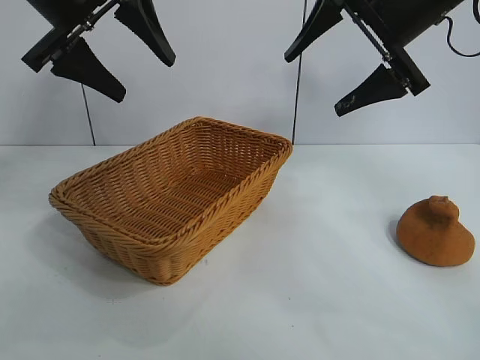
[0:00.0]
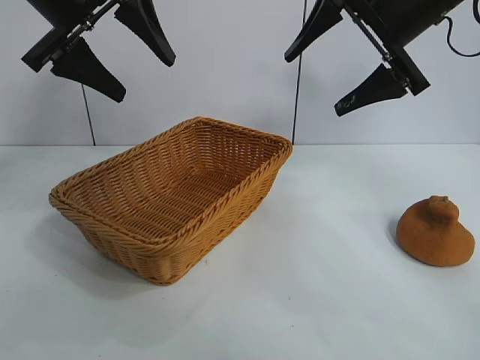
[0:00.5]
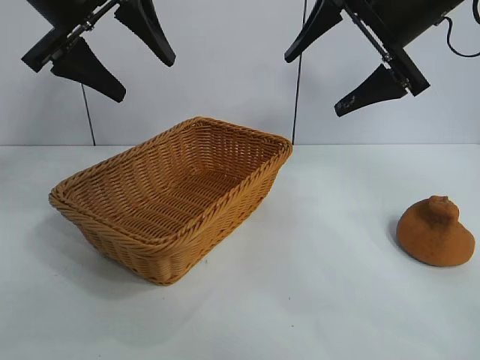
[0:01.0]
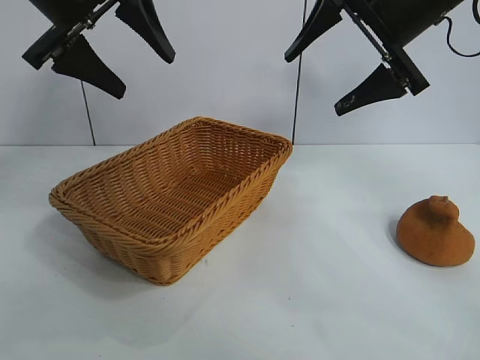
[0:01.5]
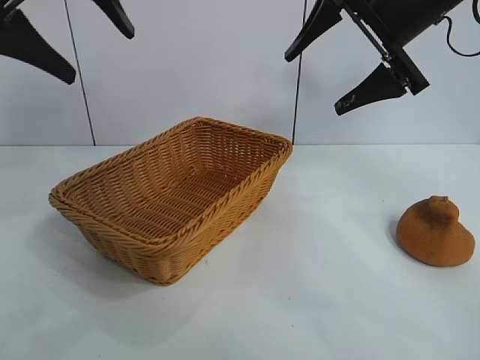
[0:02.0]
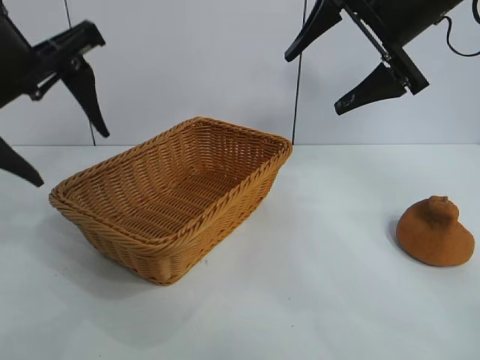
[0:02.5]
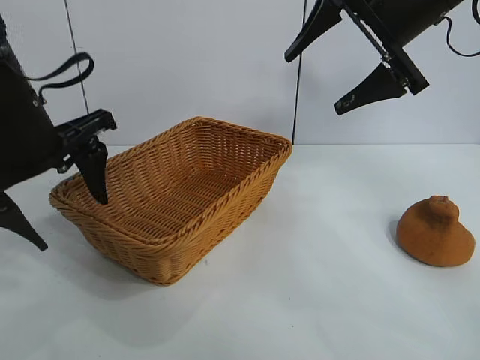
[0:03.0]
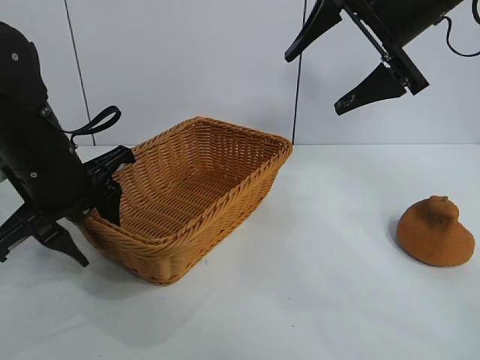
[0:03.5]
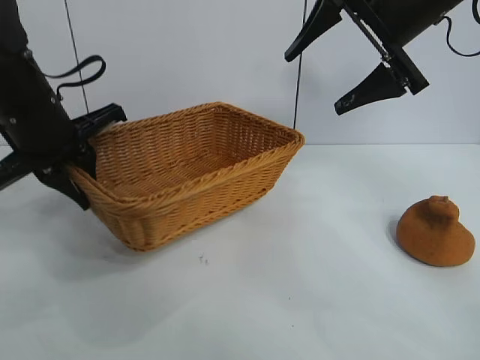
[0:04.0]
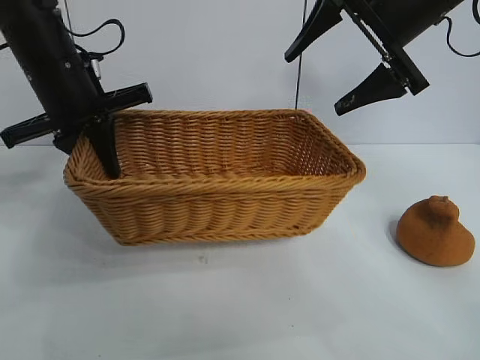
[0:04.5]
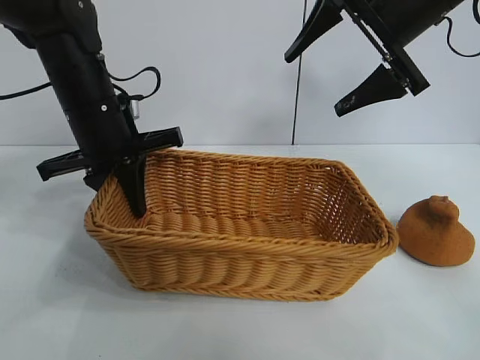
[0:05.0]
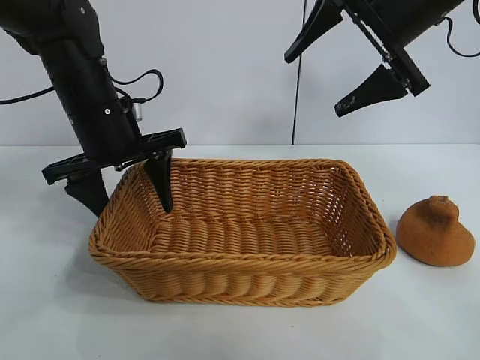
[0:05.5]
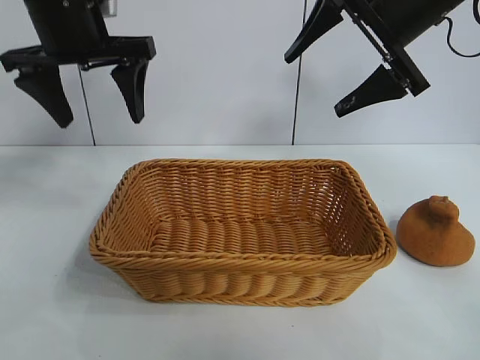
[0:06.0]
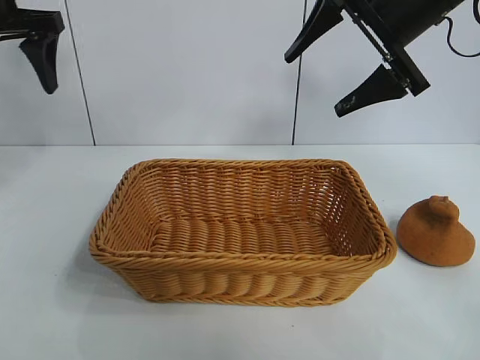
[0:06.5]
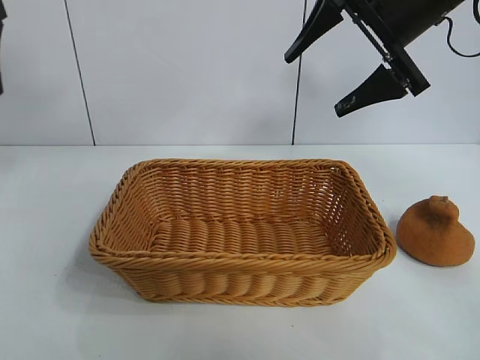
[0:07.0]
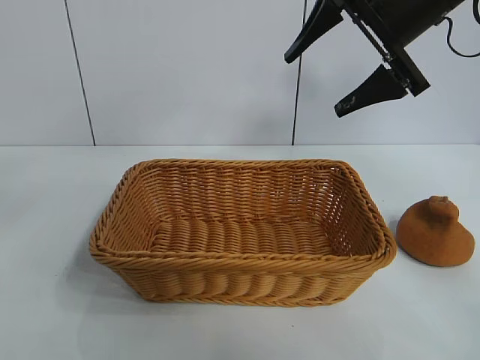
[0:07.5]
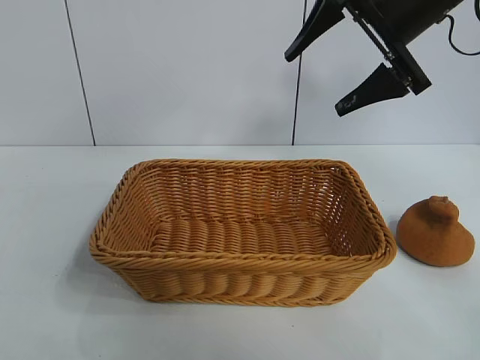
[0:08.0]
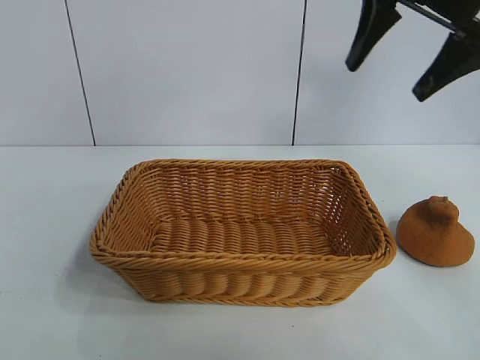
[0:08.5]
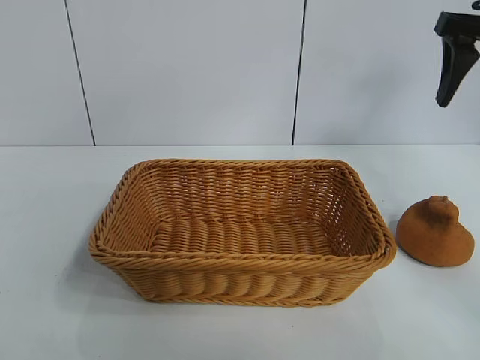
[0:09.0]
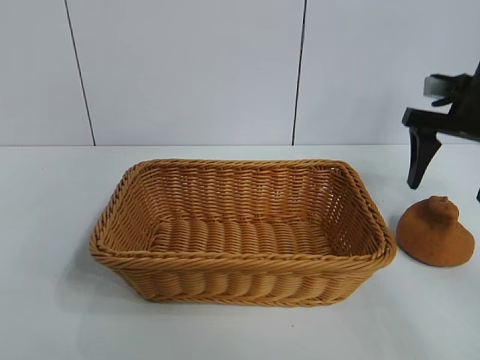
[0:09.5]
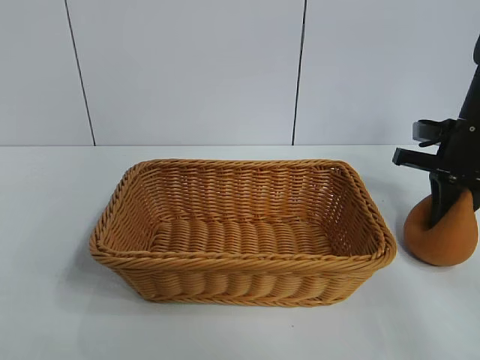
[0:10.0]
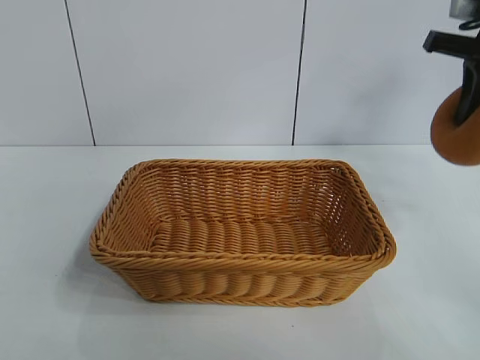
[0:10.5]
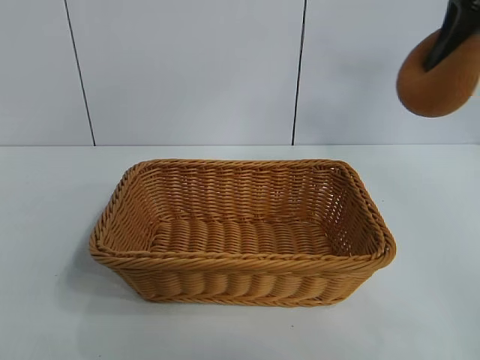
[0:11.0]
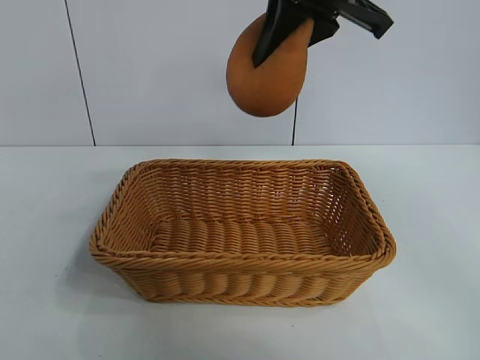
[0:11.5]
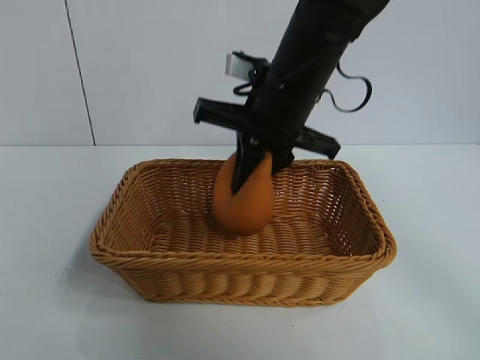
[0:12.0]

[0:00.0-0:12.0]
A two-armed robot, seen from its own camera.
Task of the whole recording: pick up the orange and put it into the basket.
Step, 0:00.0 to 0:03.5: Grasp the basket with left gripper.
Step, 0:04.0 to 0:05.5: Place the basket in the center of view with left gripper.
Step, 0:06.0 to 0:10.0: Grasp the orange with right gripper.

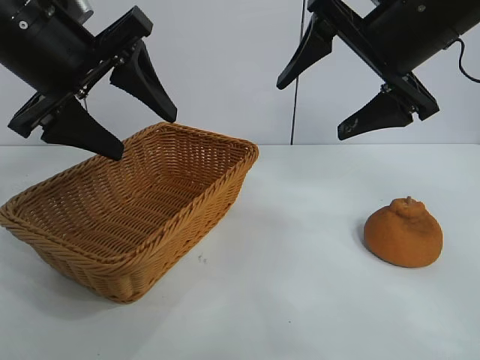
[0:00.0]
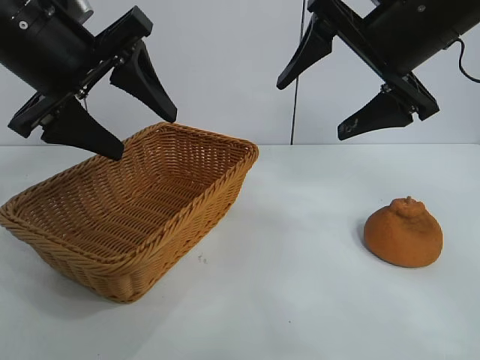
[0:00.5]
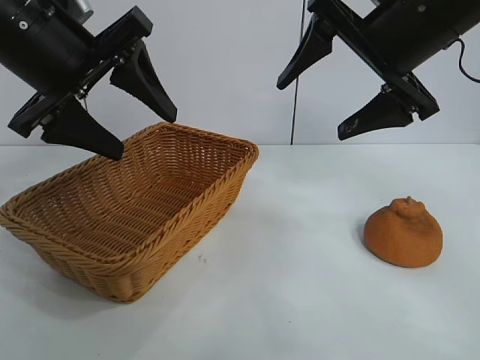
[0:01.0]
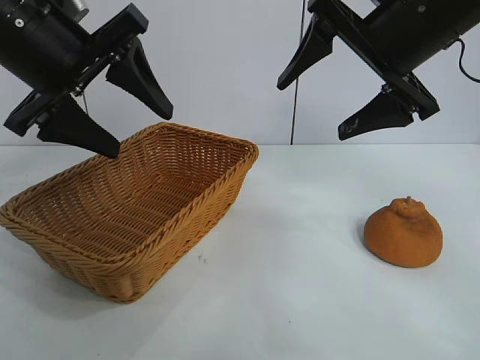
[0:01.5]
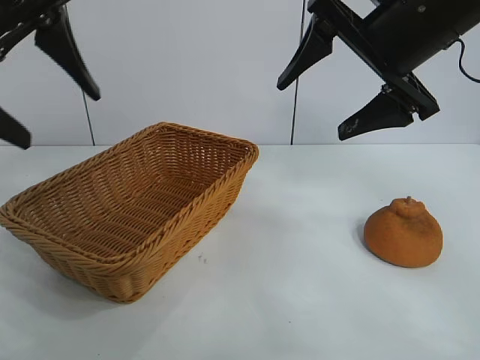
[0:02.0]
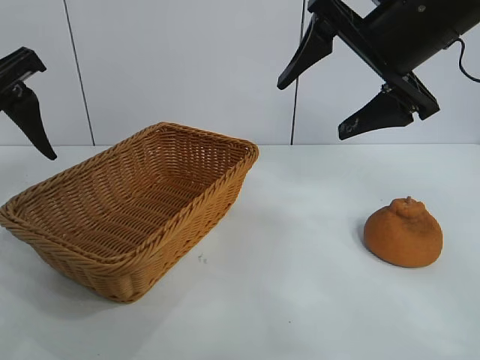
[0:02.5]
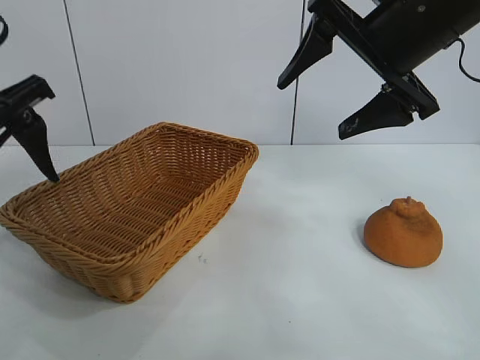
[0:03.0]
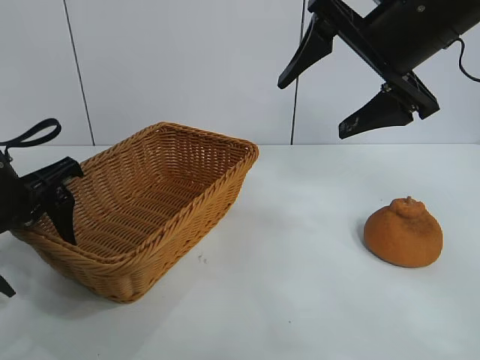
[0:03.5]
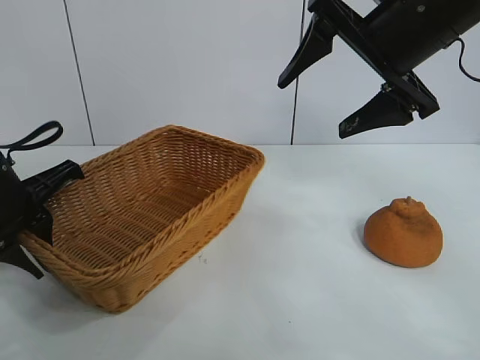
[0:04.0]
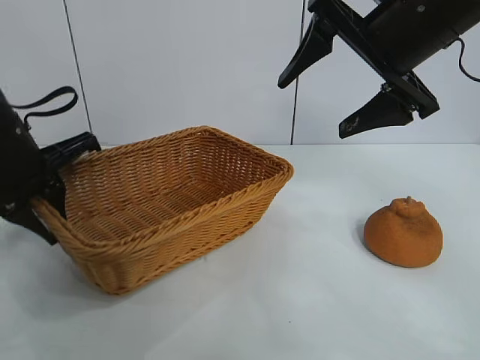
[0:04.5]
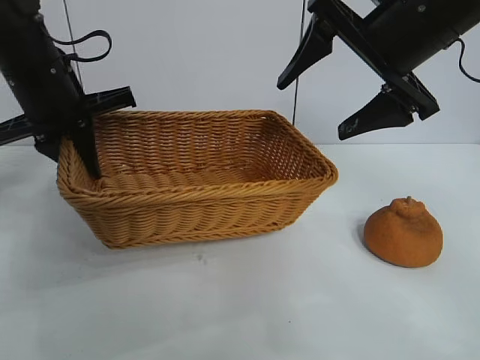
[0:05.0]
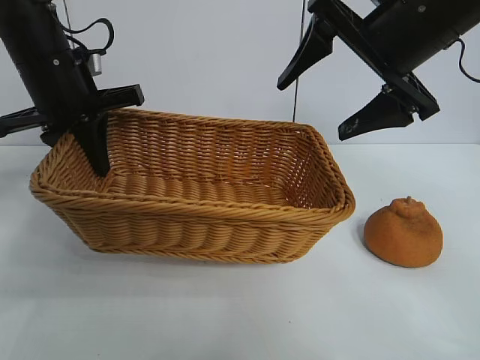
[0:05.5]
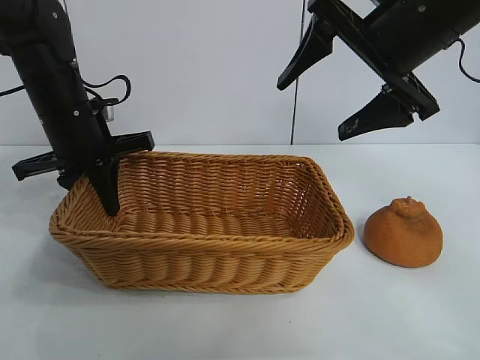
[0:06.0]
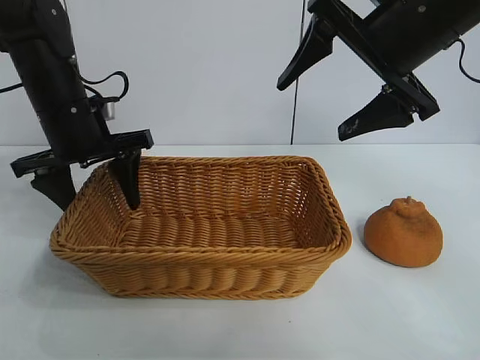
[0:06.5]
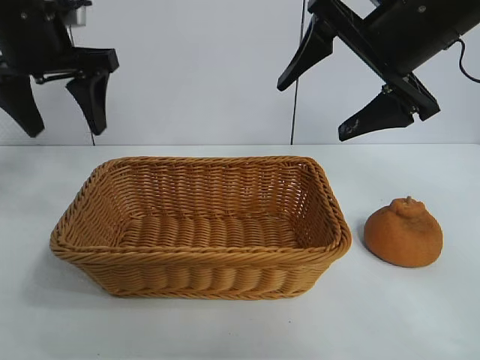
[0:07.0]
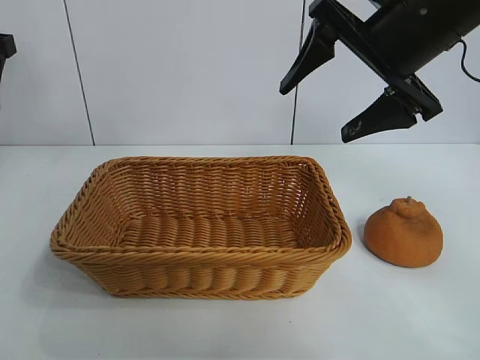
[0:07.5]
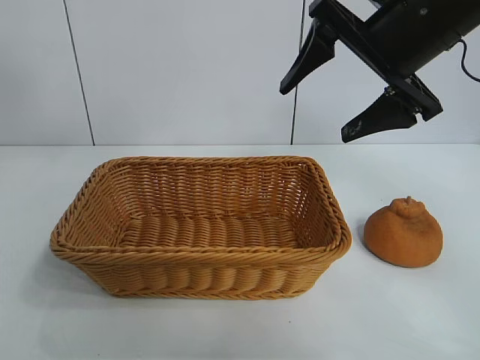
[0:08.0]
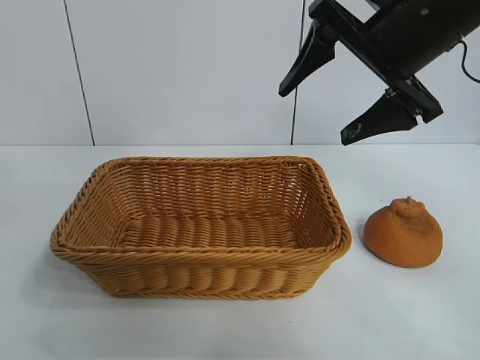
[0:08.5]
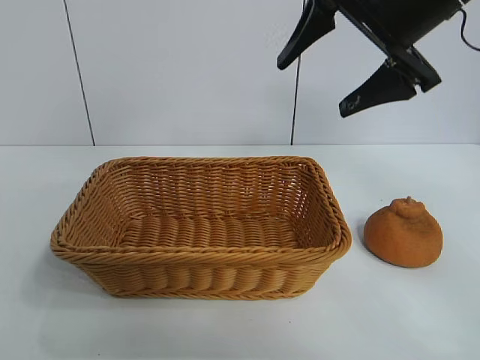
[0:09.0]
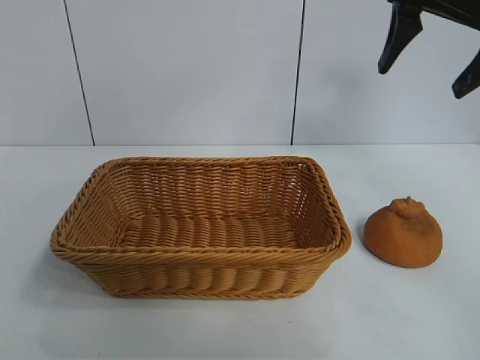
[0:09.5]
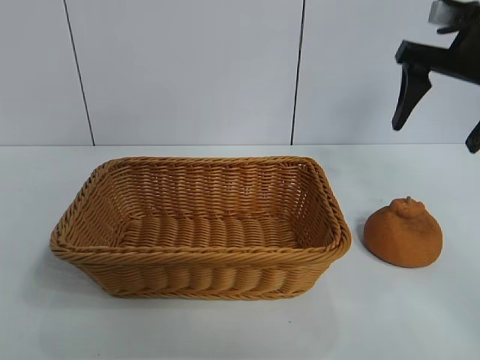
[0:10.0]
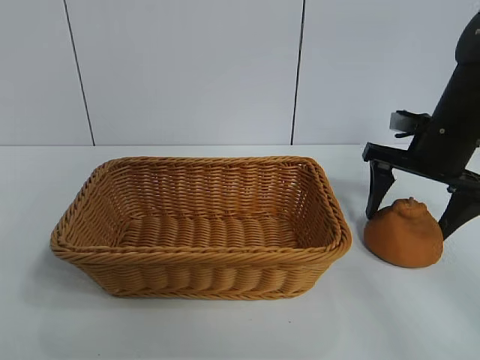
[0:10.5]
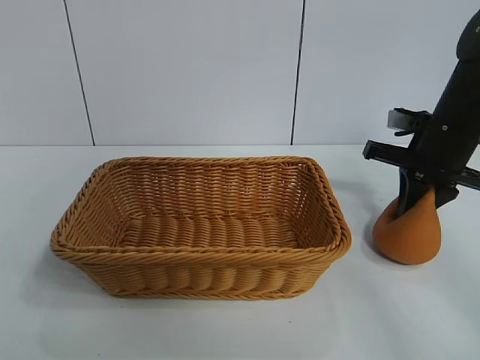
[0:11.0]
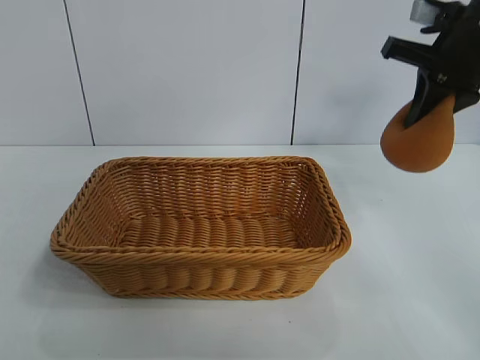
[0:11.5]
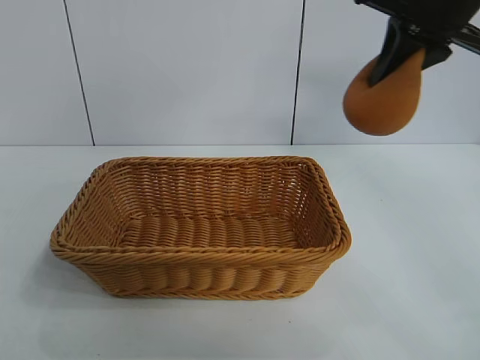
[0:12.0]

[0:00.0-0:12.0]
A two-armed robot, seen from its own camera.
Task of the whole recording: pick up the orange and put it into the basket.
Step, 0:01.0 to 0:04.0: Grasp the basket with left gripper.
Step, 0:04.5 to 0:06.5: Place the basket in the center of view with left gripper.
Step, 0:07.0 to 0:10.5: Grasp the orange with right gripper.
